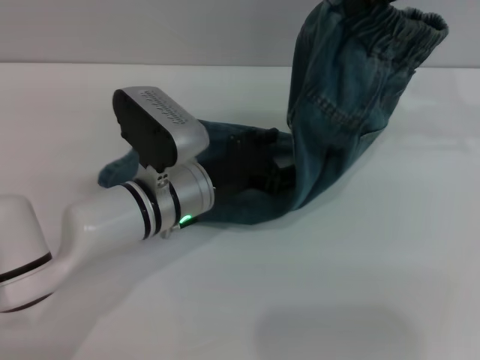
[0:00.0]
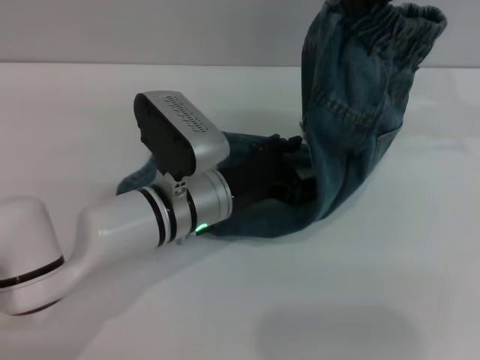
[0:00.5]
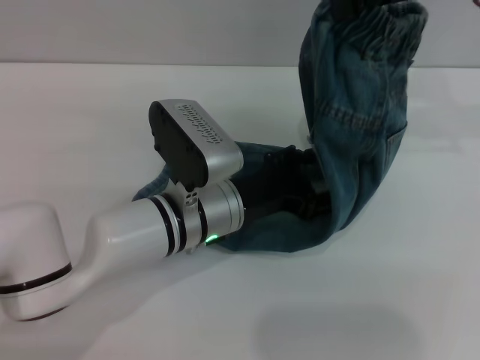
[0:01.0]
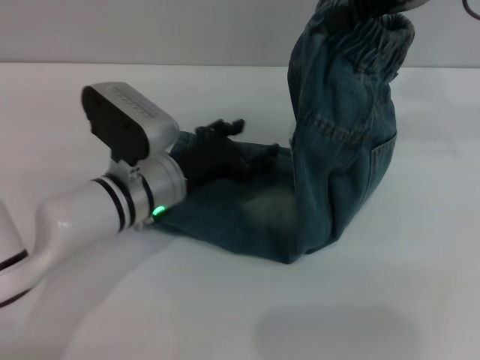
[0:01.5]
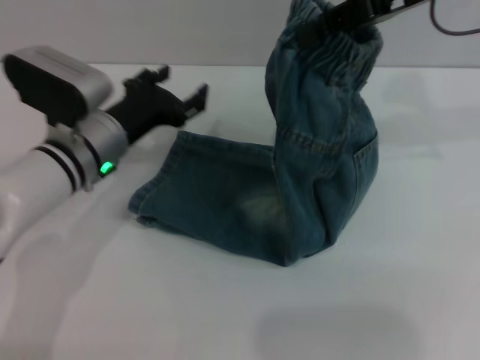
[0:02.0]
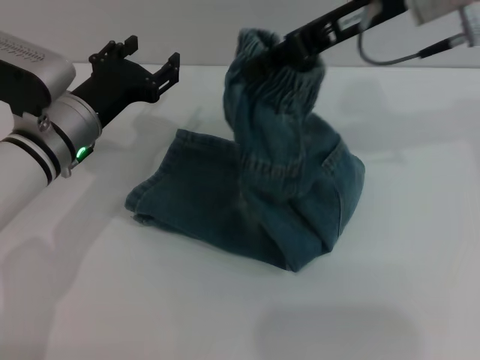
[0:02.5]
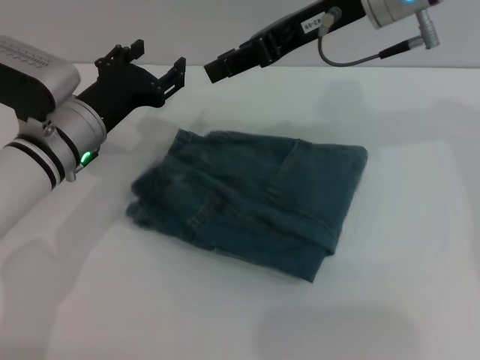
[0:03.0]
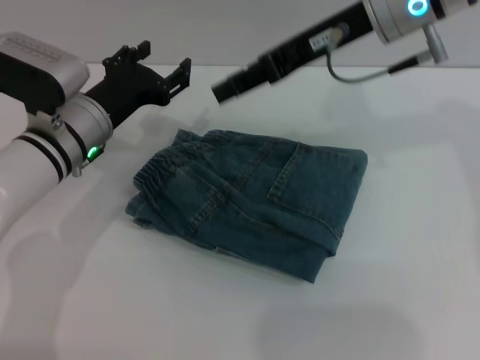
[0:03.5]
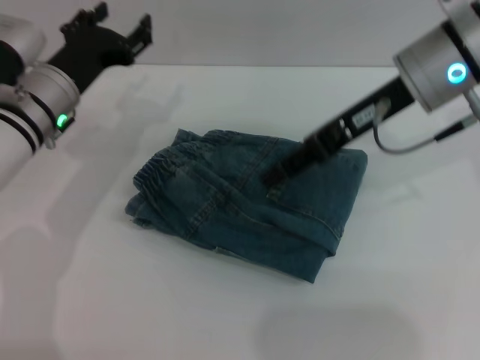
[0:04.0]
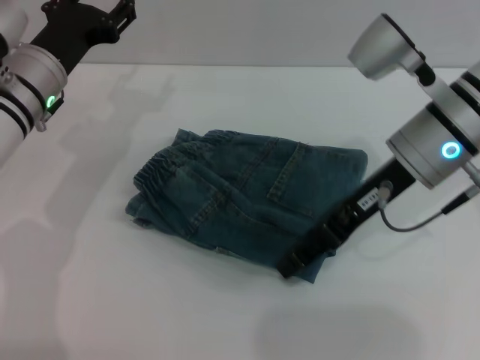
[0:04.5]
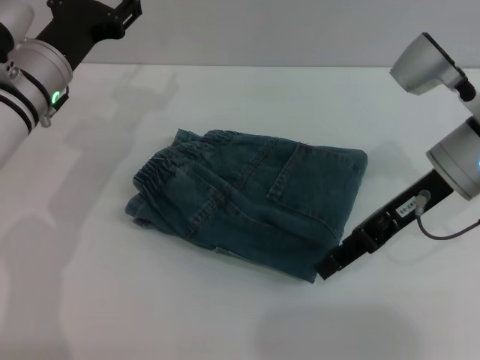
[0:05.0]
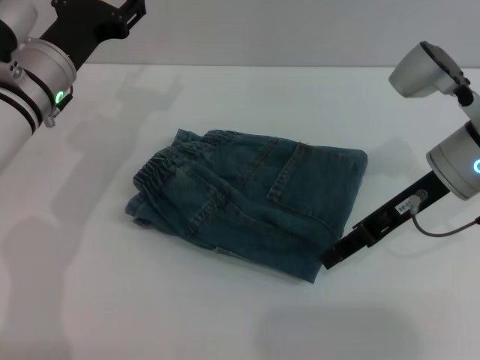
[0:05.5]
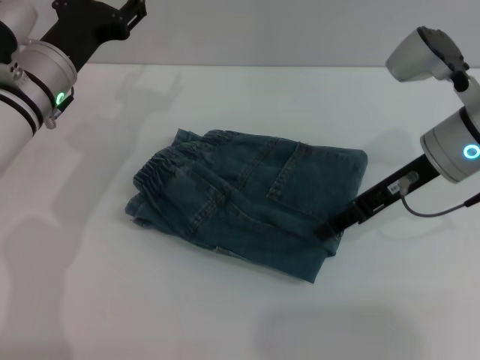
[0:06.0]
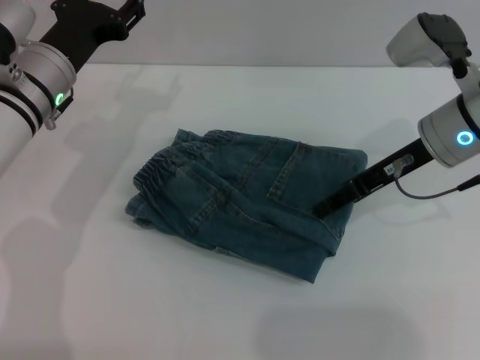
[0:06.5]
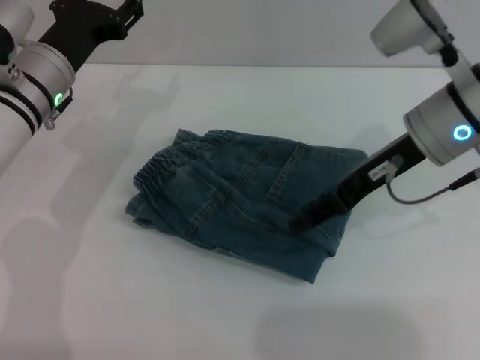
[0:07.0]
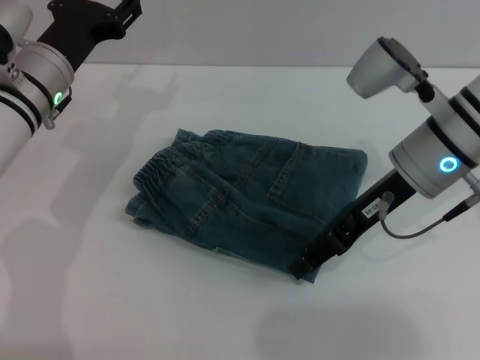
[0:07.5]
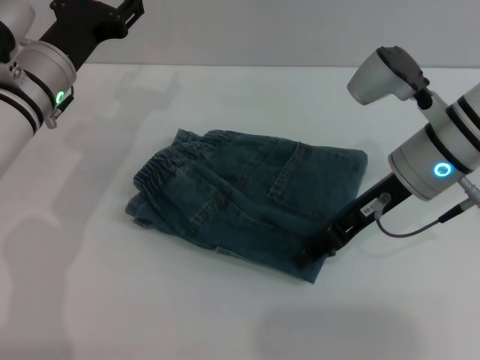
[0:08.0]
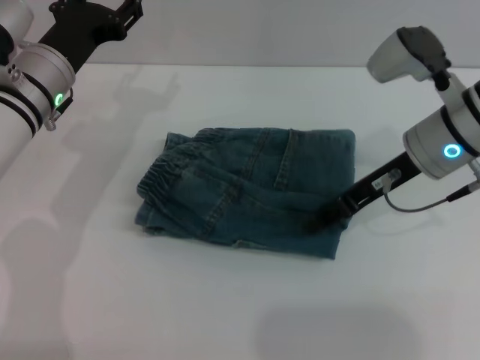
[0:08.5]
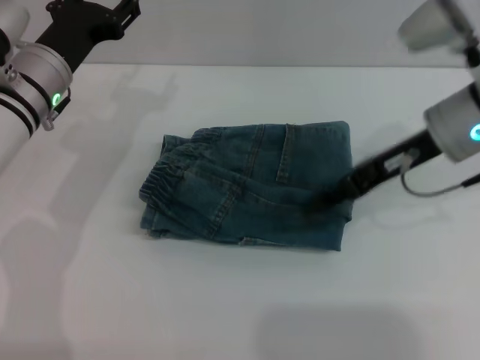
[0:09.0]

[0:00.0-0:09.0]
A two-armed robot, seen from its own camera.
Step, 0:00.0 to 0:03.0: Fold the pants from right to left with the right gripper.
Step, 0:03.5 to 0:09.0: Place the folded trousers onto the center area with the right grippers.
0:00.0 to 0:02.0: The left gripper travels to the left by some 5 cm.
0:02.0 to 0:04.5: The right gripper shifts approximately 15 cm downward and backward, and opens its fingers. Meanwhile the left gripper is displaced to the left by some 5 cm.
0:07.0 to 0:09.0: The grippers make only small movements.
